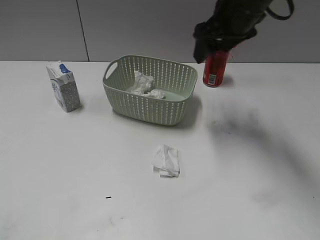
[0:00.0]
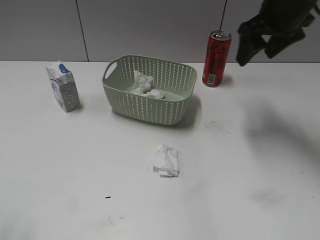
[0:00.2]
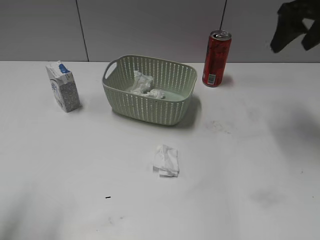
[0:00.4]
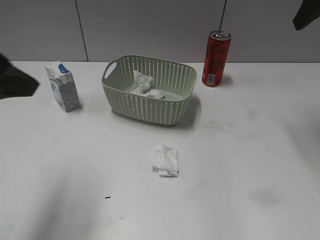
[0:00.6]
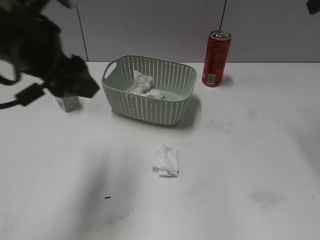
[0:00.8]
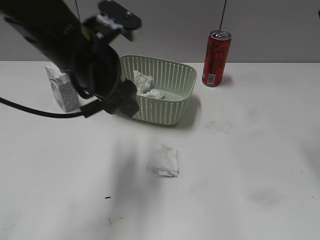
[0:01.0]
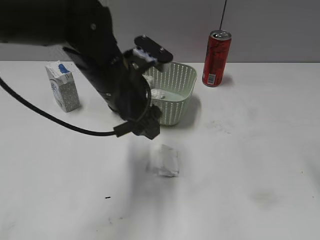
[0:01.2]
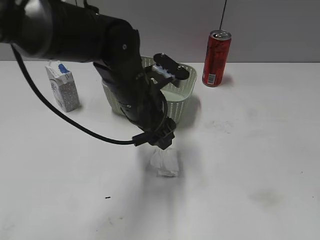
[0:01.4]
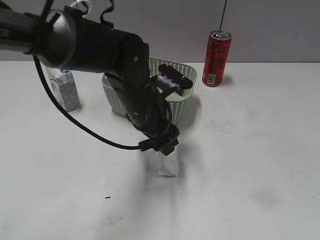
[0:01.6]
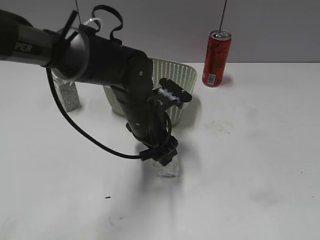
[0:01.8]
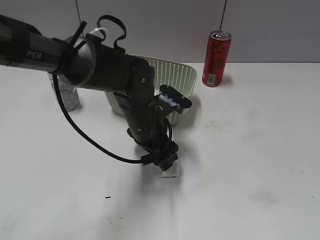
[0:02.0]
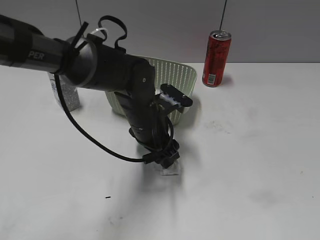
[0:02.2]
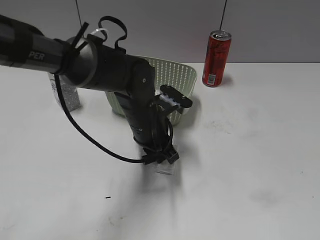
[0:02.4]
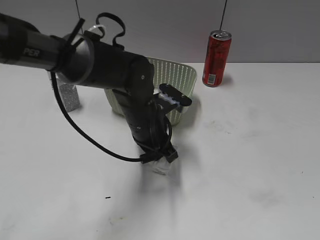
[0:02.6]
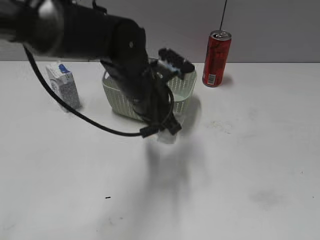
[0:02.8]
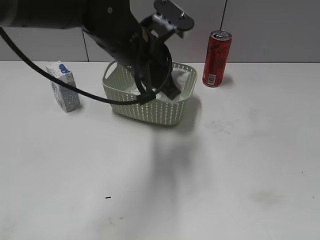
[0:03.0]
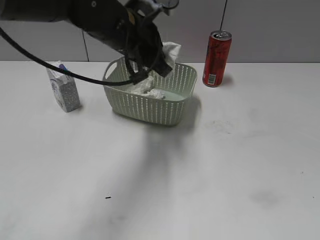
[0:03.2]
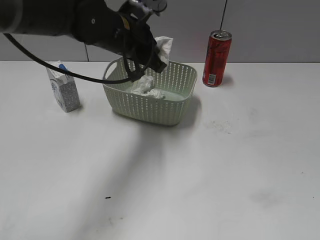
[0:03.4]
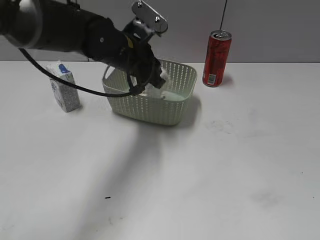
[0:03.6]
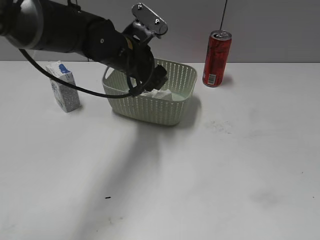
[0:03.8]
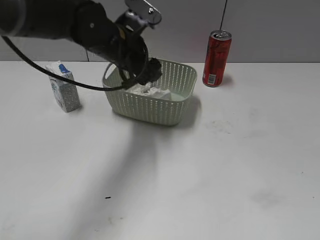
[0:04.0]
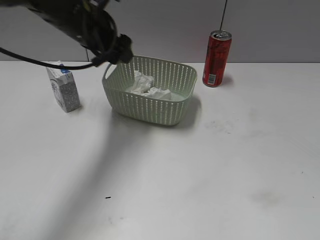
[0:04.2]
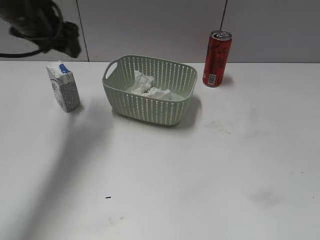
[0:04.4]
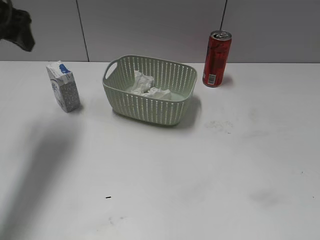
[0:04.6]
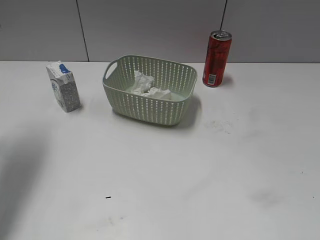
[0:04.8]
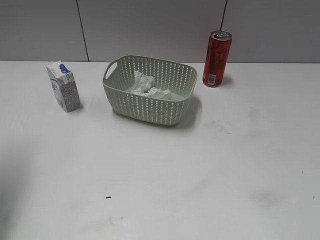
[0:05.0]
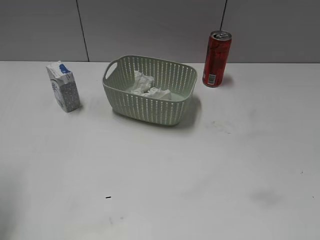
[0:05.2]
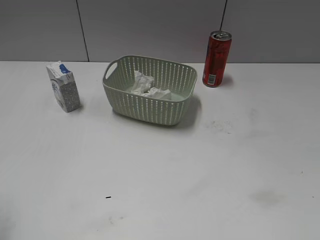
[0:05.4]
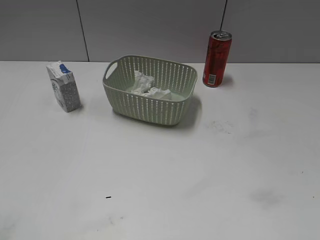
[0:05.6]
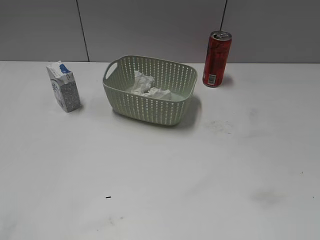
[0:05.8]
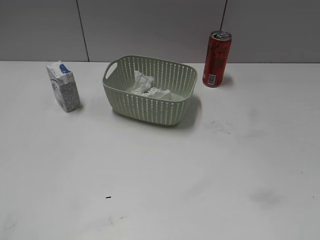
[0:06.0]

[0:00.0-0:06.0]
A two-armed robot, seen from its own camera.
Step, 0.0 to 2.6 s: Grasp the waste paper with left gripper.
Step, 2.8 to 4.0 s: Place the waste paper in the basket with left gripper.
0.0 to 1.6 s: The left gripper moves to the right, forward and downward, some 40 cm. Meanwhile the right gripper heads backward and to the right, covering roughly 30 cm.
1.6 to 3.0 s: The right gripper shifts roughly 10 cm backward. Meanwhile the left gripper travels upward by roughly 10 cm, and closes up.
3.0 to 4.4 s: The left gripper is displaced to the left by approximately 20 cm, and opens up.
4.4 to 6.0 s: The left gripper goes about 35 cm backward.

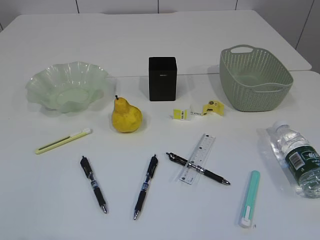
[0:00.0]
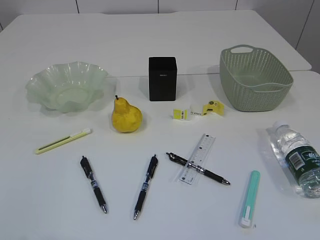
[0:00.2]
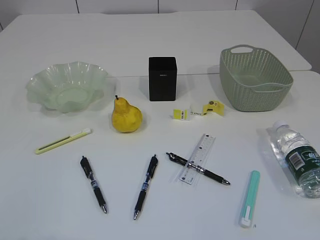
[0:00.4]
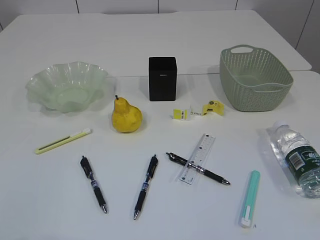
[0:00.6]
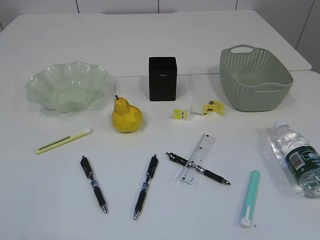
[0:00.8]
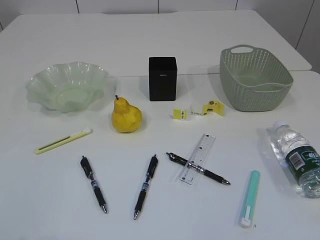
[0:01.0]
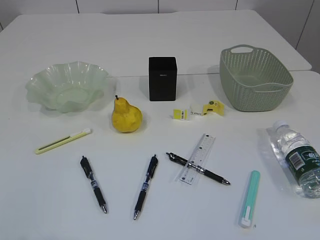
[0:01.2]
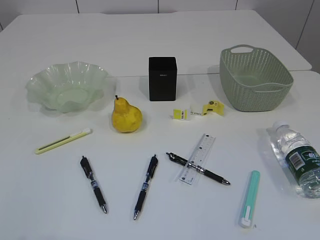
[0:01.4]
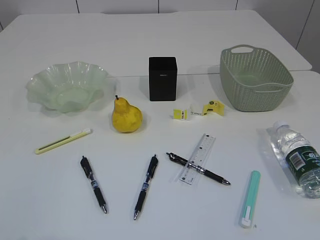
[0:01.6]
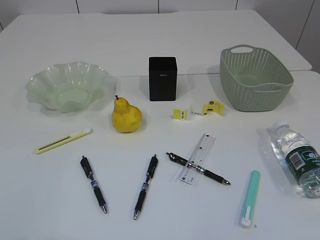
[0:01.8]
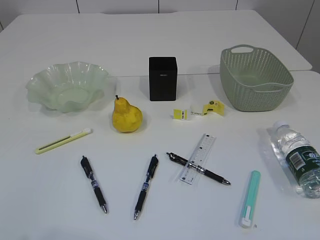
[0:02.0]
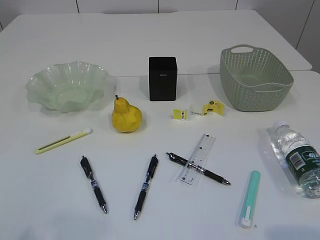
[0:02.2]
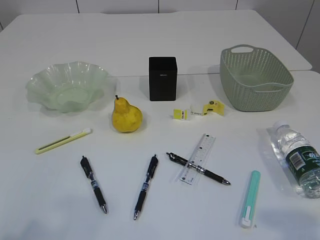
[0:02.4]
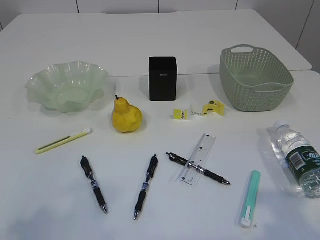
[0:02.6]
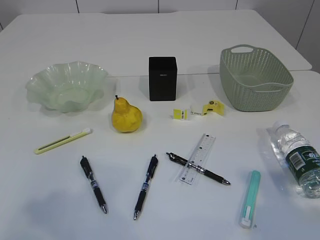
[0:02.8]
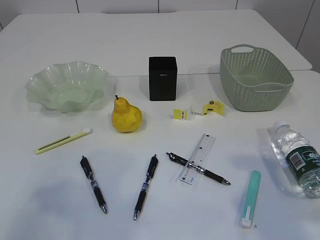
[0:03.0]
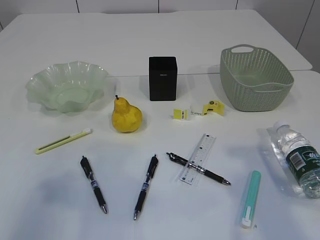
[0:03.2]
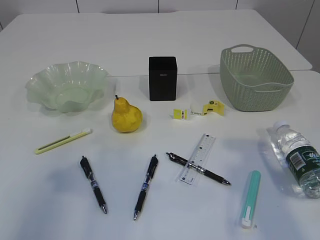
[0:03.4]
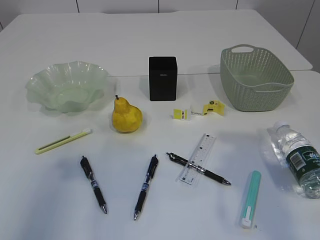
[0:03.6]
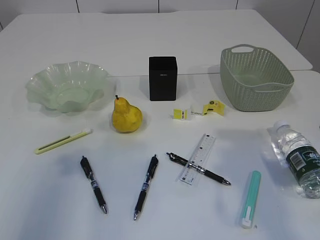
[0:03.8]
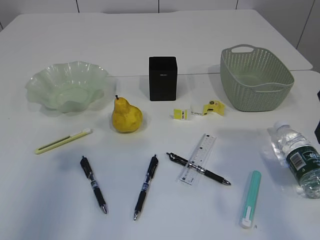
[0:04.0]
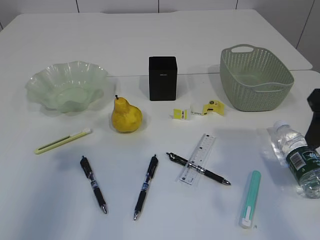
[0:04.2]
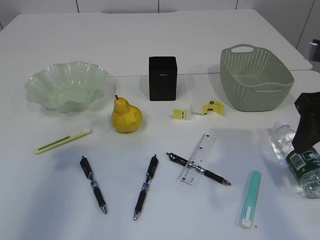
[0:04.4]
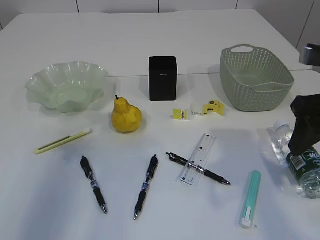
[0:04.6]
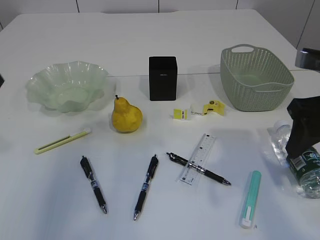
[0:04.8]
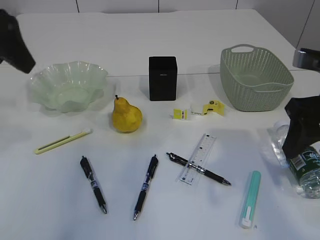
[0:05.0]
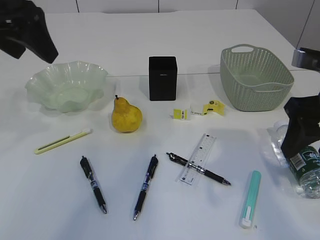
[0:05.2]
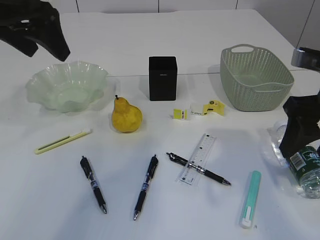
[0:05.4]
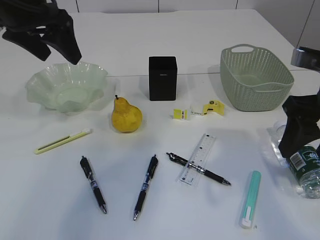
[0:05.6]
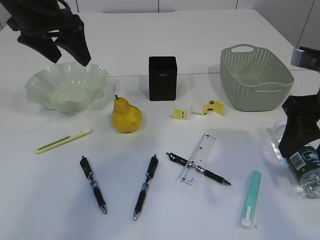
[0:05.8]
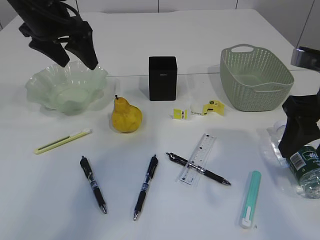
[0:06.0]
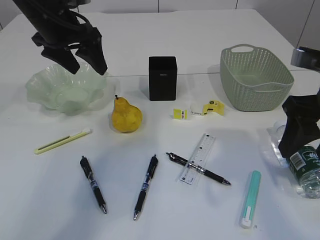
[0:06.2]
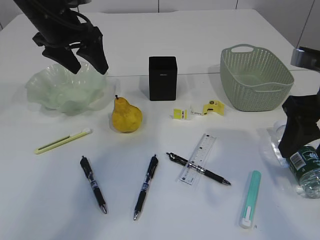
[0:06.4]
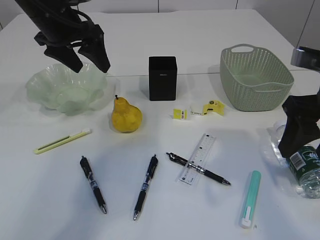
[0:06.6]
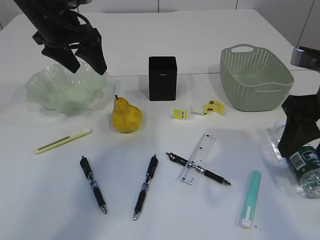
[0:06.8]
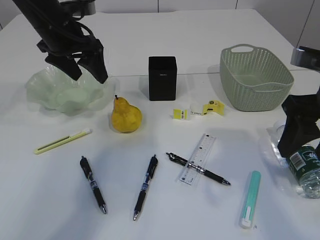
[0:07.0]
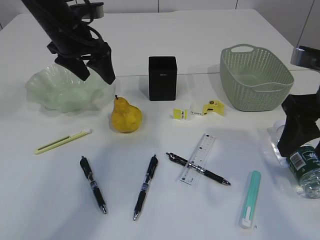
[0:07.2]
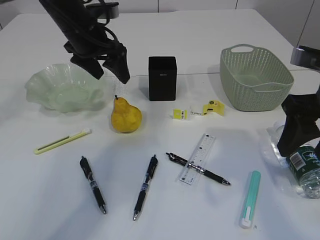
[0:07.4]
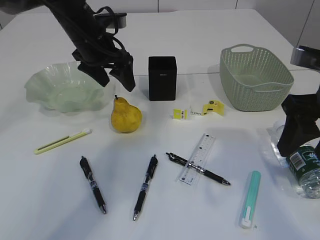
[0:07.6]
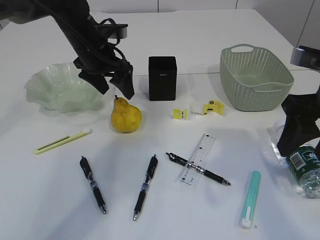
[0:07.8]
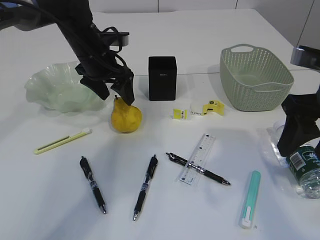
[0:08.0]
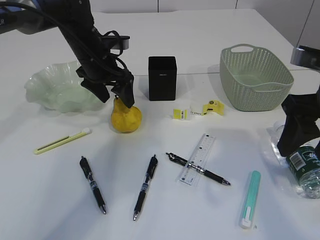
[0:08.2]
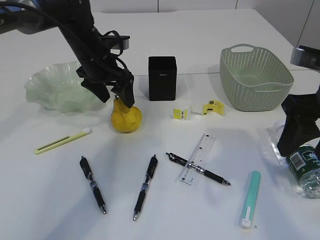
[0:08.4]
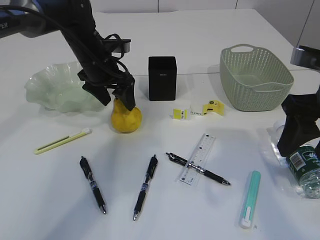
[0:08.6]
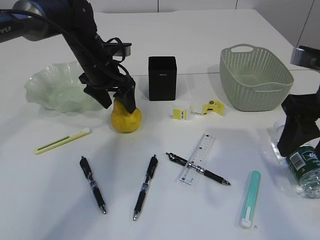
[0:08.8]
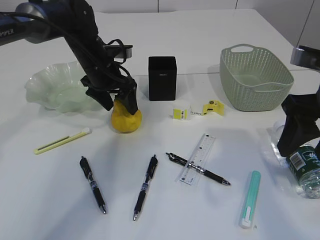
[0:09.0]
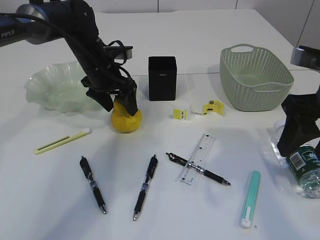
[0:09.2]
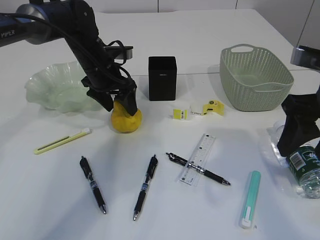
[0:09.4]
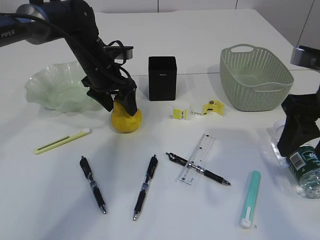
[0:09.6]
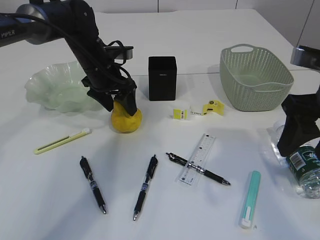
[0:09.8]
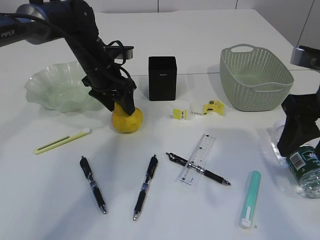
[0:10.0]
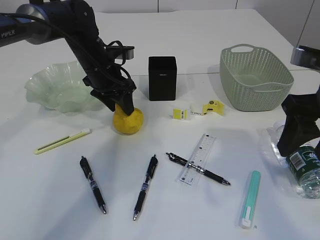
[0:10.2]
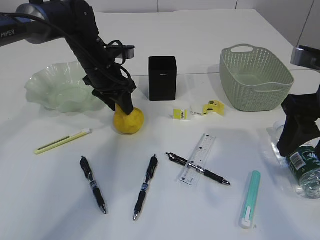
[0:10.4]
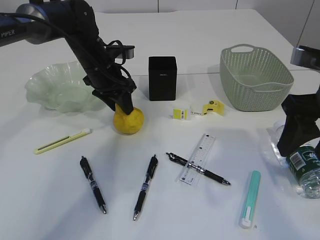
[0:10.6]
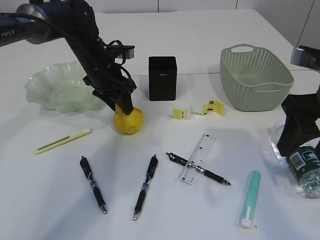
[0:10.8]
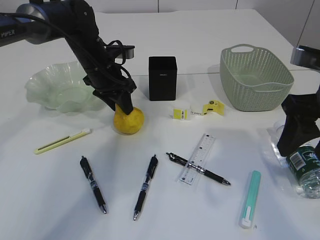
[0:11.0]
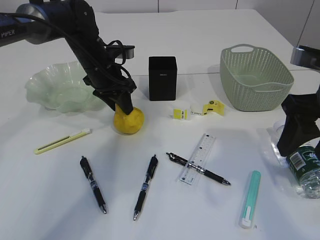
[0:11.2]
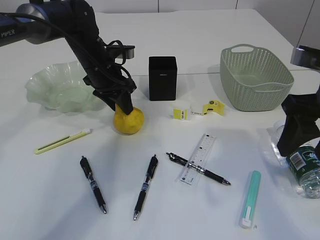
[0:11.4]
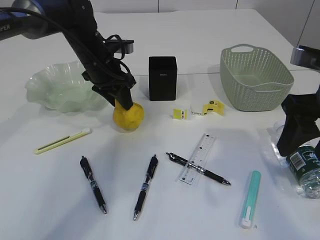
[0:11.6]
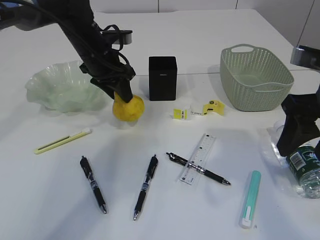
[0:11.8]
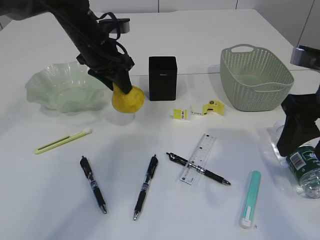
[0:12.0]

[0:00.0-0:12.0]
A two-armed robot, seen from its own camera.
1.6 to 3.0 s: The left gripper goes roughly 15 cm forward and upward. Meanwhile the right gripper travels forward by about 15 cm.
3.0 to 4.4 s: The grippers both shift forward by approximately 10 cm.
4.4 to 6.0 s: The left gripper heads forward and to the right, covering approximately 20 cm.
6.0 to 7.6 s: The left gripper shifts about 10 cm downward and to the right.
7.6 to 9.0 s: The left gripper goes some 5 cm downward.
9.0 to 10.4 s: The left gripper closes up.
10.4 to 12.0 s: The left gripper goes about 5 cm upward.

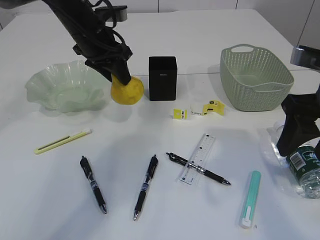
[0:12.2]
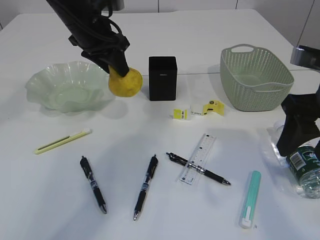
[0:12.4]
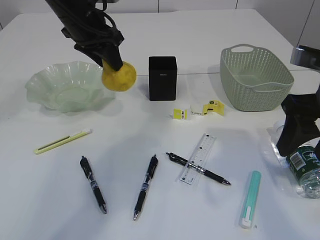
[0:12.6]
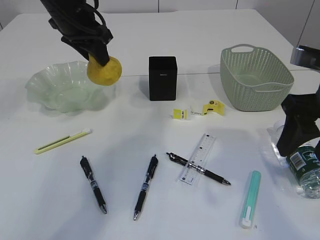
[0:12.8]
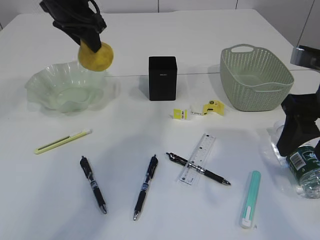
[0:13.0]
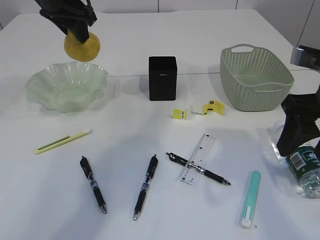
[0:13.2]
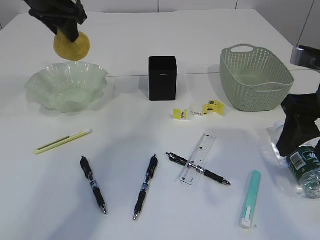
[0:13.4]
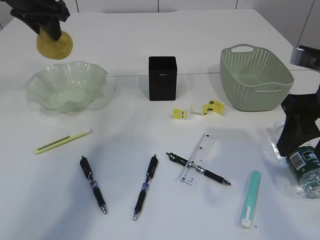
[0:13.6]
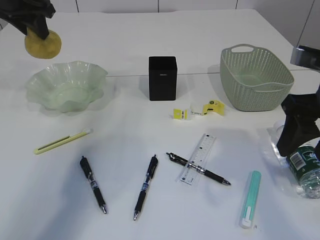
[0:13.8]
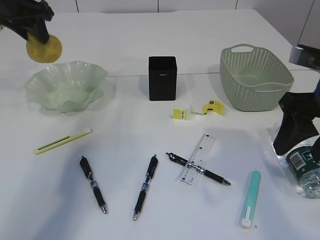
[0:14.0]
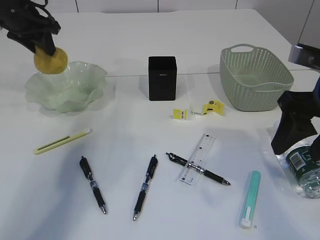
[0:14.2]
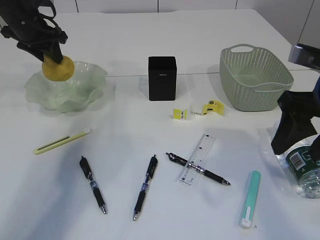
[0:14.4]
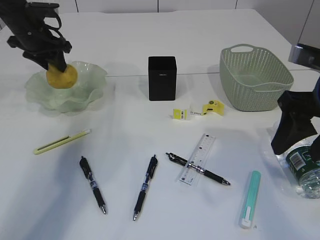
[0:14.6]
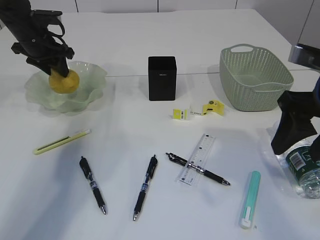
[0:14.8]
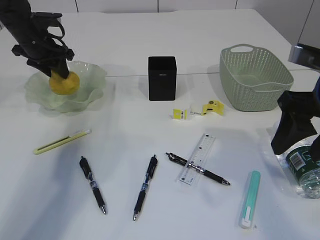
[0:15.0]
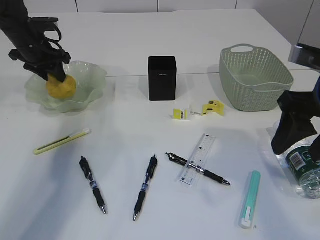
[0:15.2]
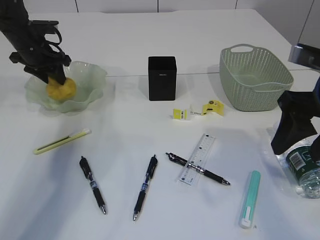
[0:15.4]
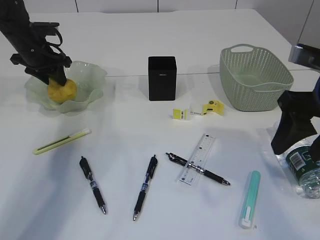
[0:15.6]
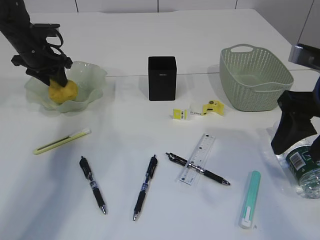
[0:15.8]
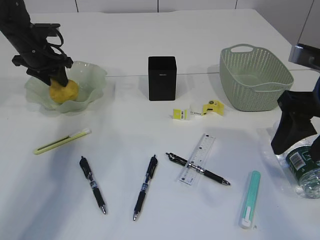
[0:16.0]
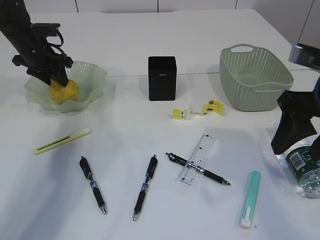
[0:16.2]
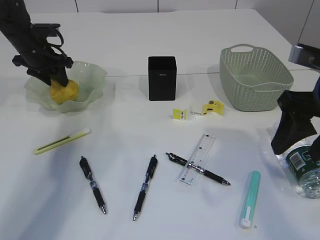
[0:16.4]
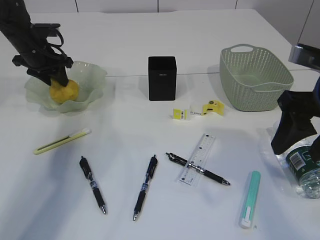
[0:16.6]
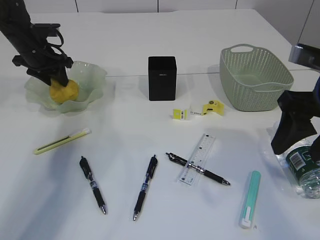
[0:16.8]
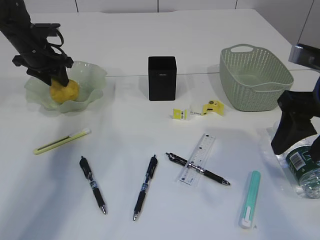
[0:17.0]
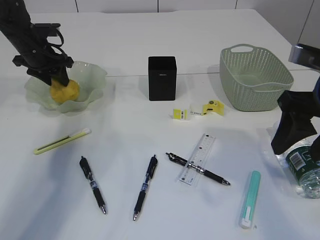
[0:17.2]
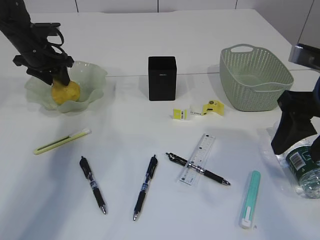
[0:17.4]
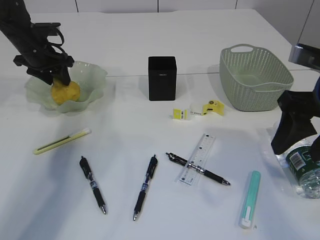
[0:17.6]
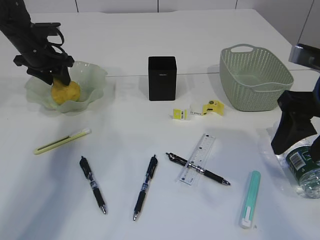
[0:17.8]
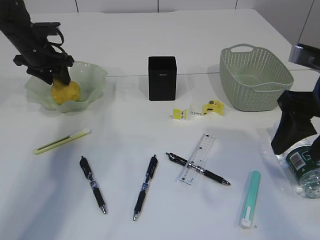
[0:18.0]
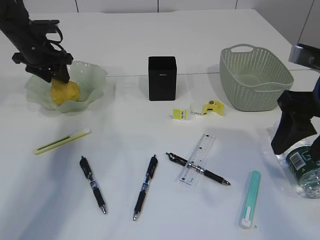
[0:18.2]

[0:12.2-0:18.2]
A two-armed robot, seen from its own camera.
12.2 to 13.8 s: The left gripper moves to the left and upward, approximately 15 cm.
13.8 to 15.2 s: The left gripper shifts about 15 cm downward and forward.
15.2 to 18.2 s: Neither gripper changes place.
